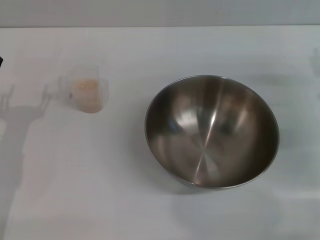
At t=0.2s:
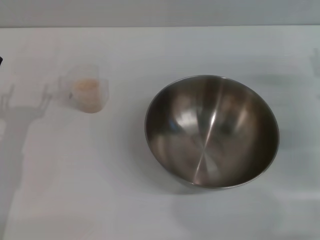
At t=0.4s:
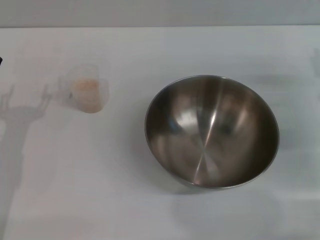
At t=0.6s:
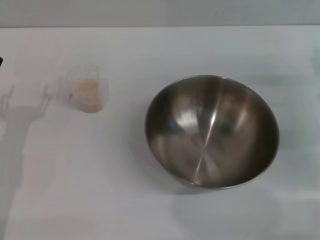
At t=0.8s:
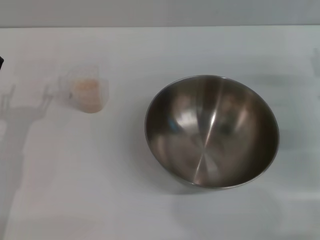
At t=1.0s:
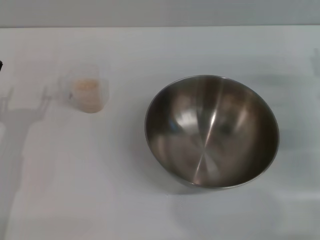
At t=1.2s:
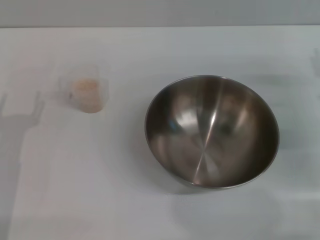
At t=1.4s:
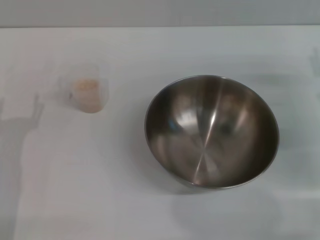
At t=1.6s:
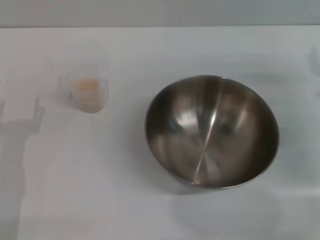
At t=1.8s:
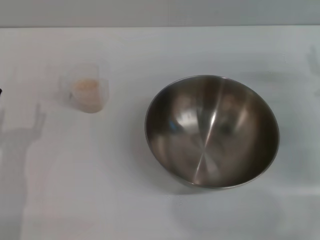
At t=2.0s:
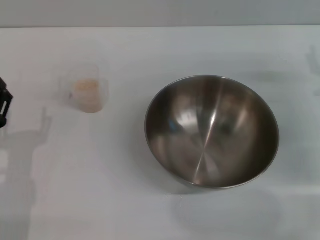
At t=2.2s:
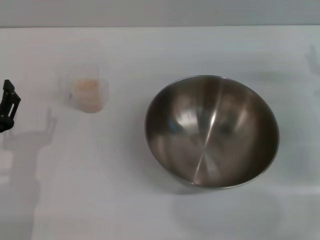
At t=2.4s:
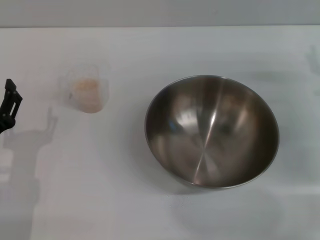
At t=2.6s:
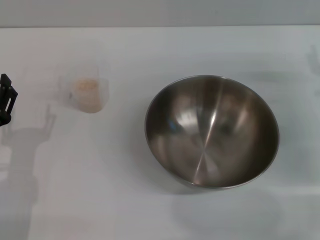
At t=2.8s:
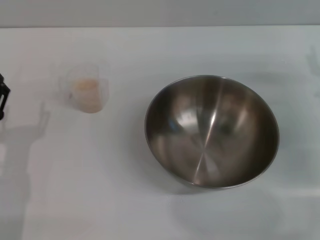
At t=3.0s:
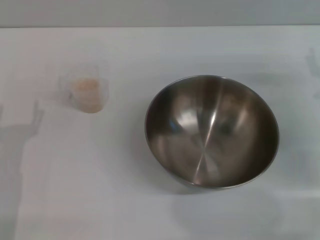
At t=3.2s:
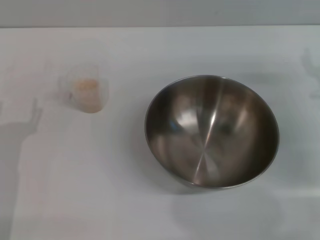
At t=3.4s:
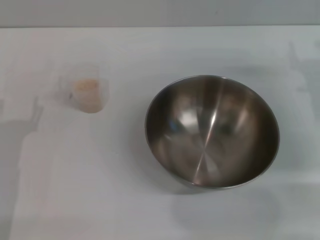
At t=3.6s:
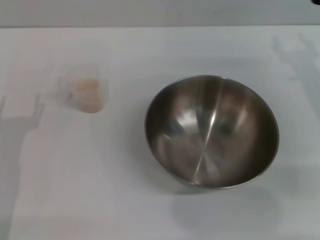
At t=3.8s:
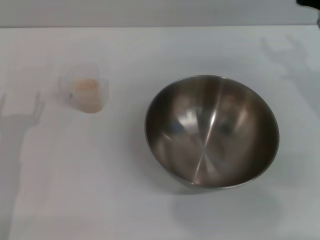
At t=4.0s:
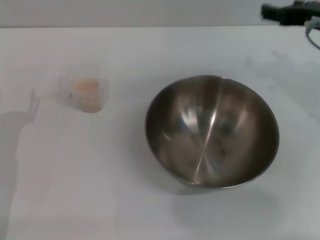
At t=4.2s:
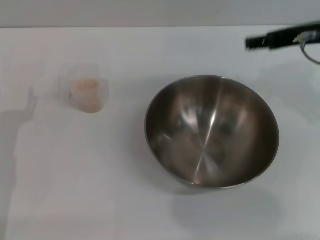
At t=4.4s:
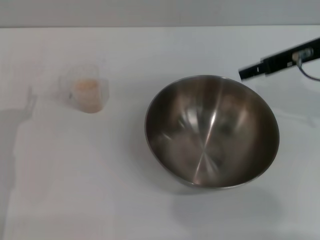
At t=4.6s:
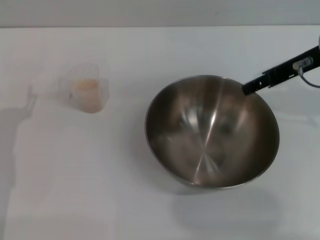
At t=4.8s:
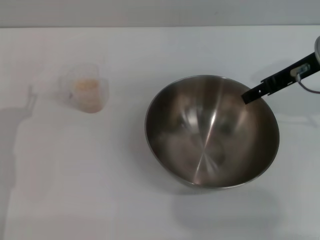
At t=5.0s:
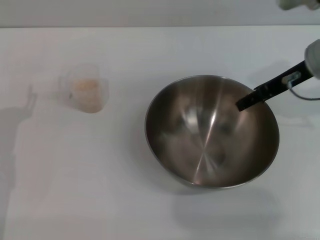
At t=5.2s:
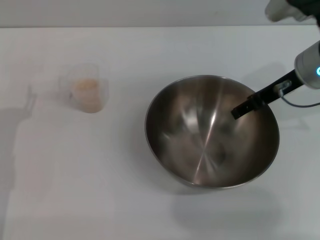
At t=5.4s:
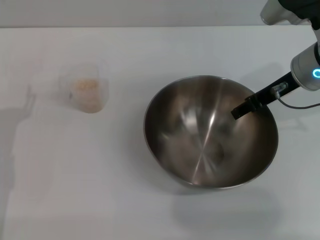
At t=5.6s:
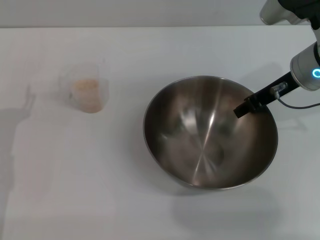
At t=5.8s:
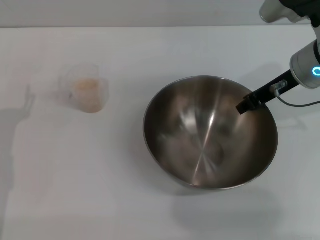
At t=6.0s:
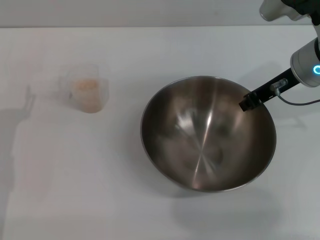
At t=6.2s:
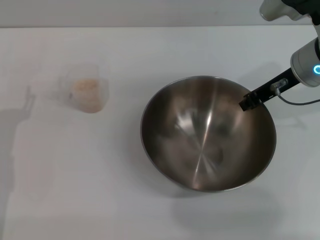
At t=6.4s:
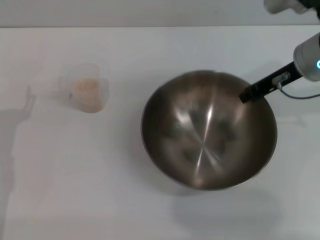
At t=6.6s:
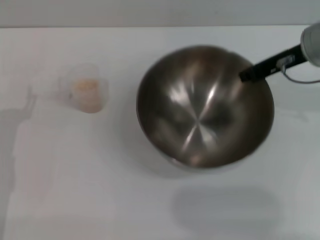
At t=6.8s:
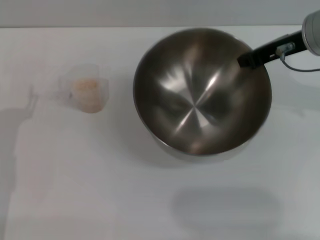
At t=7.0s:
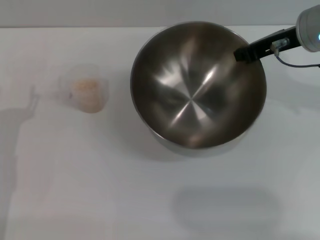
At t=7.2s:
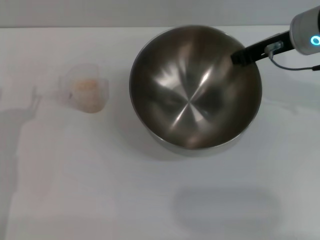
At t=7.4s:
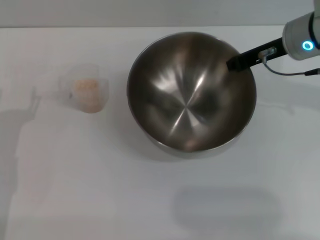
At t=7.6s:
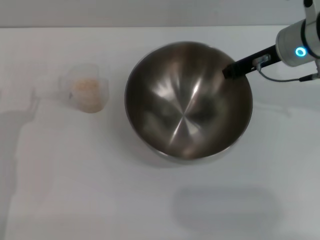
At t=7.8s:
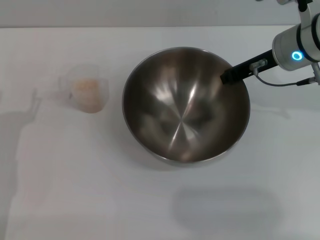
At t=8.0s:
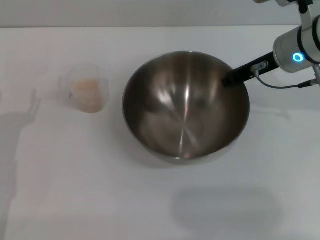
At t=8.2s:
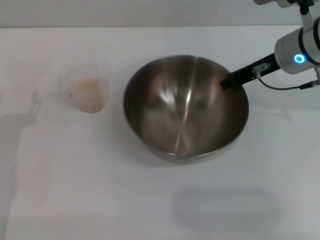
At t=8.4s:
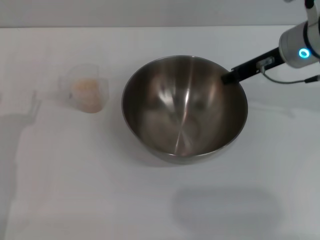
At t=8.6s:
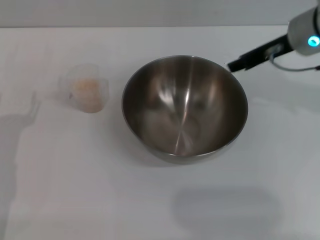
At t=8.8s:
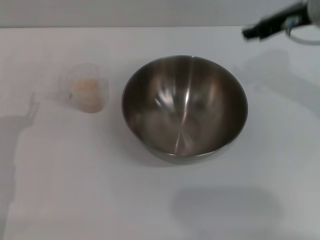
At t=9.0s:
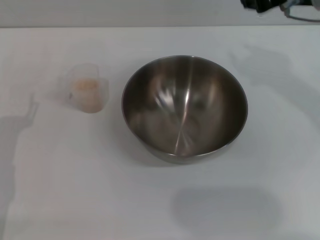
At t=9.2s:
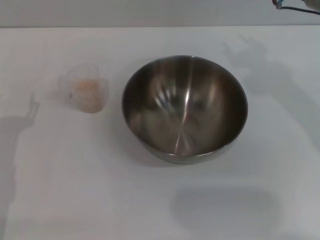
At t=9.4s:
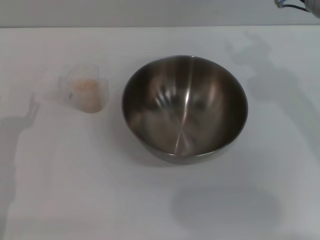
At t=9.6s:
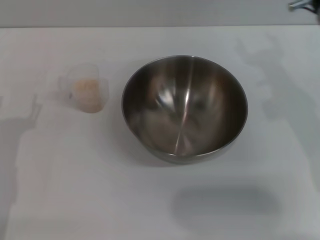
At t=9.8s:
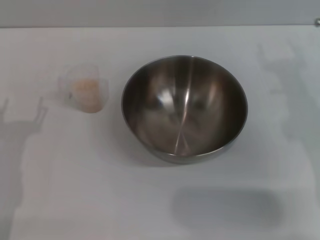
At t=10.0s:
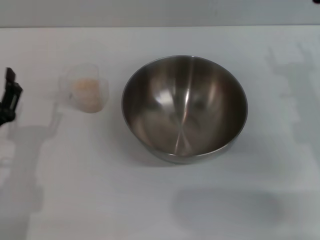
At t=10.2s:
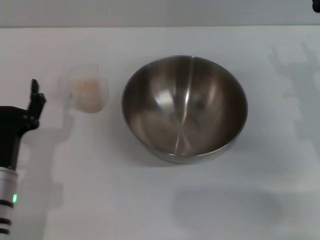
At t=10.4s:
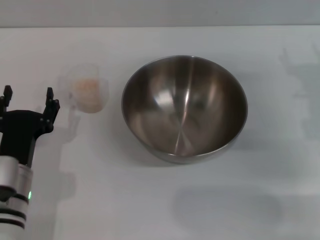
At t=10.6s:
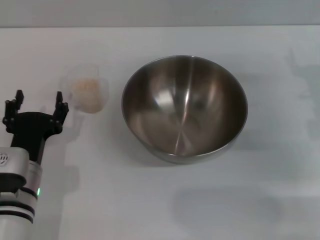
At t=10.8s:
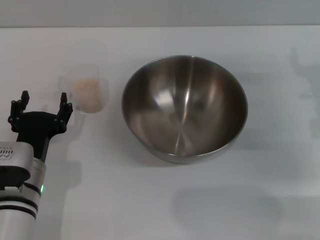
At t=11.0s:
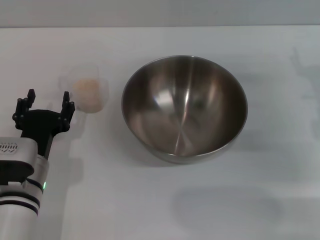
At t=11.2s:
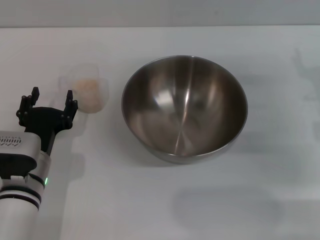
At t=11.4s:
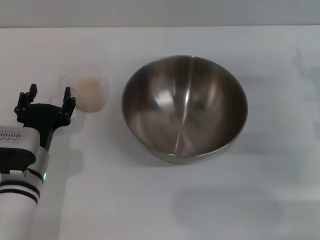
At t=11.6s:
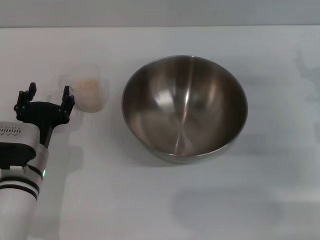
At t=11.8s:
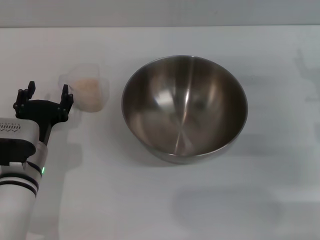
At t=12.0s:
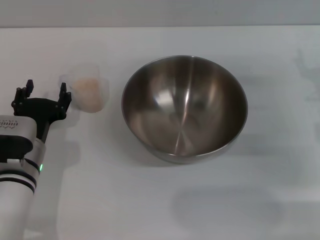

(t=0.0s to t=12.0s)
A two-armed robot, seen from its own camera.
Task of the whole recording: Place the bowl in the middle of the table with one hand and pour the rice from the grain cup into it with the other hand.
Step, t=0.0s - t=6.8s: Pick up the bowl with the right gripper.
Step, t=7.0s - t=8.8s: Place the bowl in the center of view with the right gripper.
t=3.0s - t=4.4s: The right gripper shifts roughly 15 cm upward and to the left.
t=4.4s - t=6.0s: The right gripper moves roughly 5 cm, and closes.
t=7.6s - t=9.0s: The right gripper travels upward by approximately 10 cm, and opens its fingers.
t=9.0s - t=10.4s: The left gripper moves to the right, about 10 cm. The right gripper goes about 15 cm downward and to the right, and opens.
t=10.4s - t=12.0s: The left gripper heads forward, covering approximately 5 cm.

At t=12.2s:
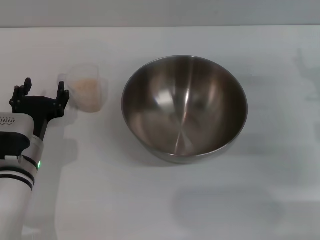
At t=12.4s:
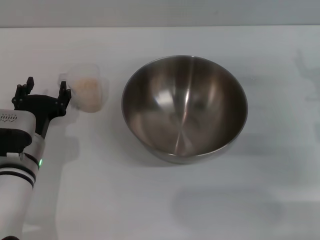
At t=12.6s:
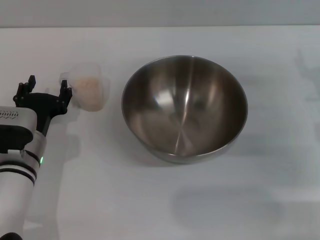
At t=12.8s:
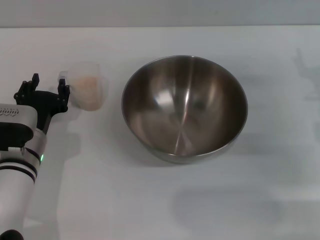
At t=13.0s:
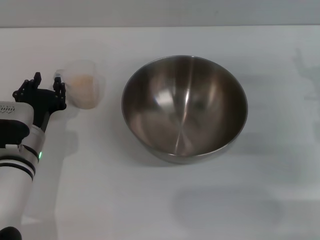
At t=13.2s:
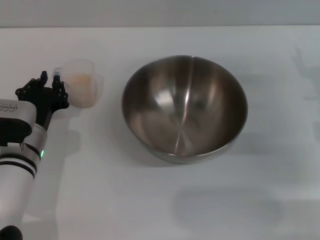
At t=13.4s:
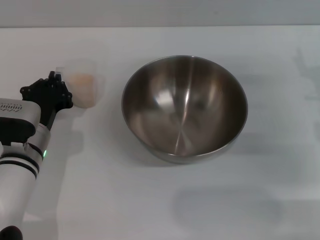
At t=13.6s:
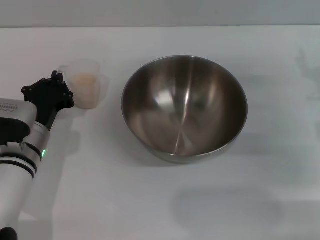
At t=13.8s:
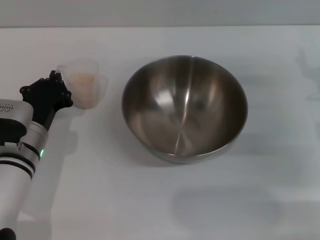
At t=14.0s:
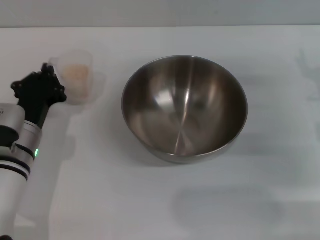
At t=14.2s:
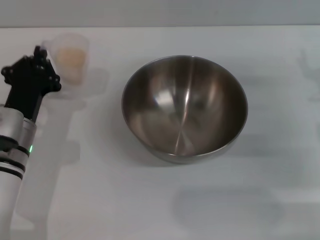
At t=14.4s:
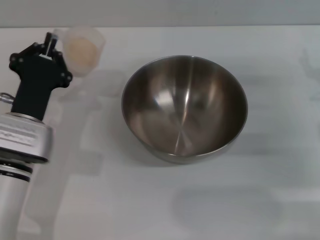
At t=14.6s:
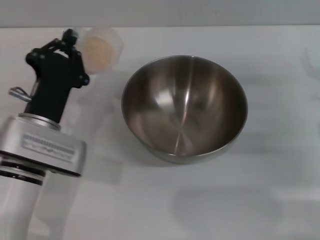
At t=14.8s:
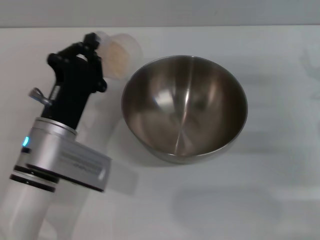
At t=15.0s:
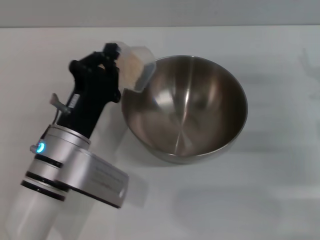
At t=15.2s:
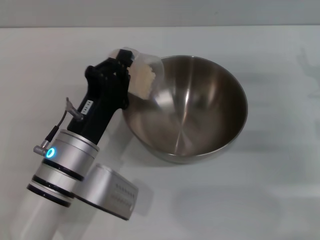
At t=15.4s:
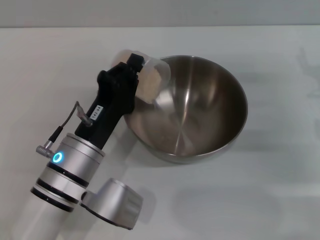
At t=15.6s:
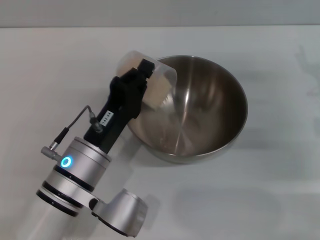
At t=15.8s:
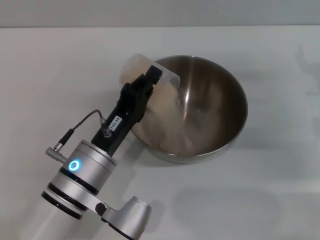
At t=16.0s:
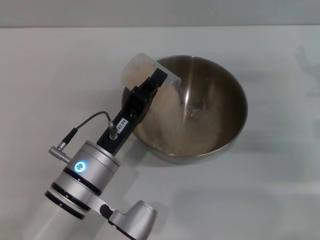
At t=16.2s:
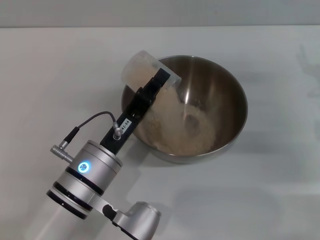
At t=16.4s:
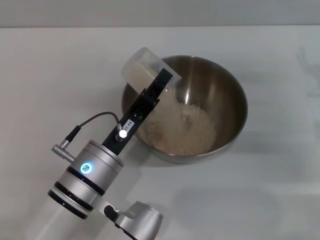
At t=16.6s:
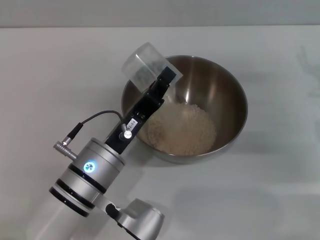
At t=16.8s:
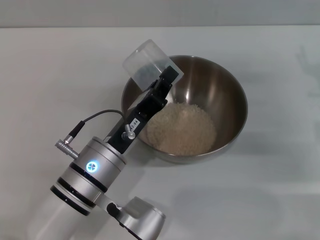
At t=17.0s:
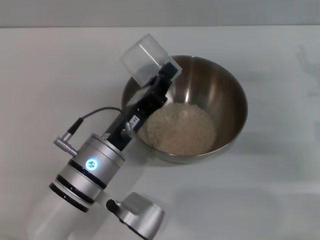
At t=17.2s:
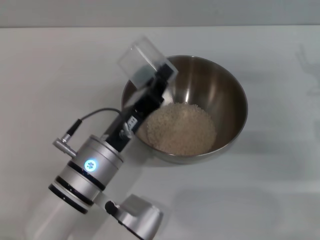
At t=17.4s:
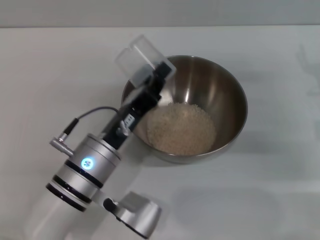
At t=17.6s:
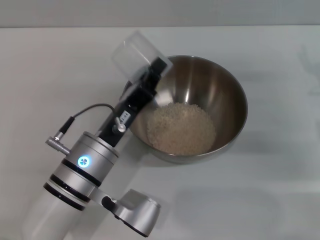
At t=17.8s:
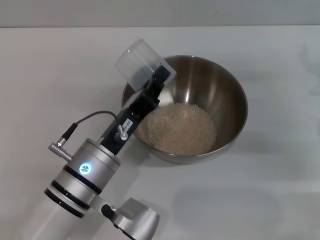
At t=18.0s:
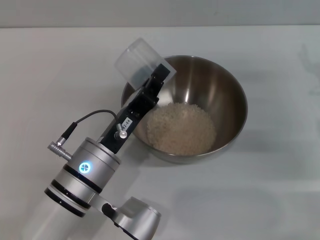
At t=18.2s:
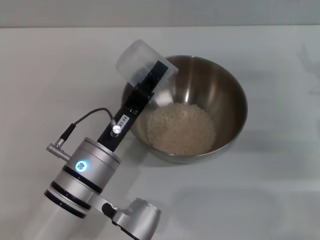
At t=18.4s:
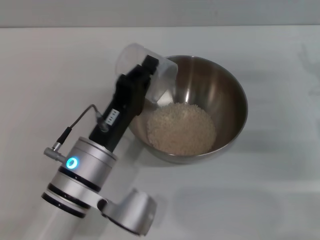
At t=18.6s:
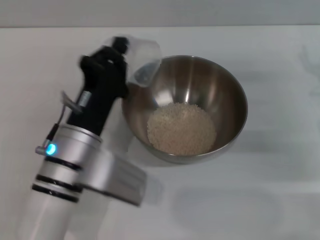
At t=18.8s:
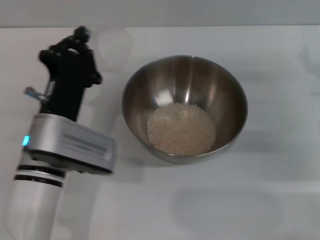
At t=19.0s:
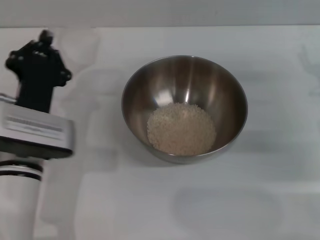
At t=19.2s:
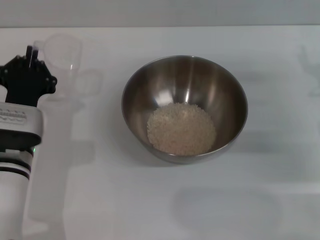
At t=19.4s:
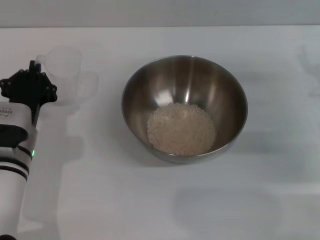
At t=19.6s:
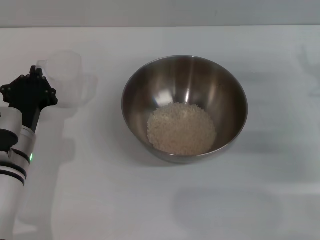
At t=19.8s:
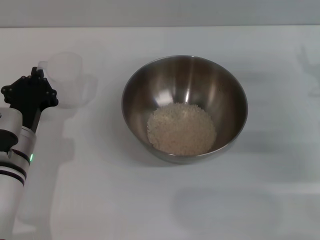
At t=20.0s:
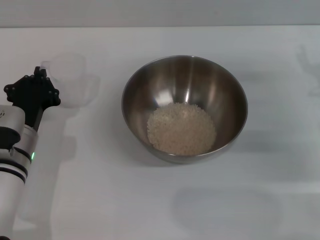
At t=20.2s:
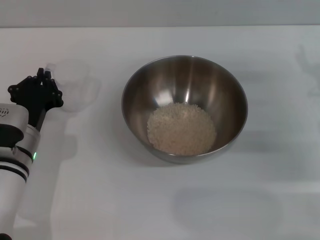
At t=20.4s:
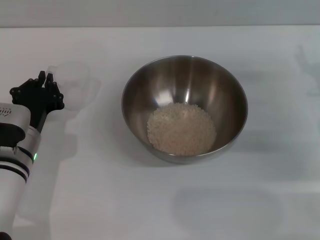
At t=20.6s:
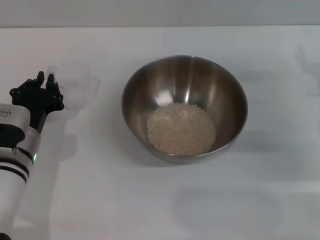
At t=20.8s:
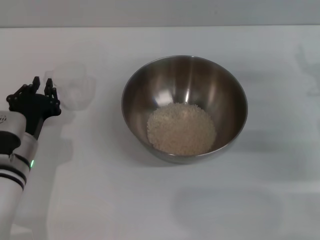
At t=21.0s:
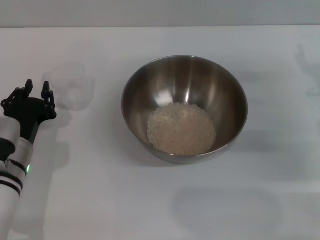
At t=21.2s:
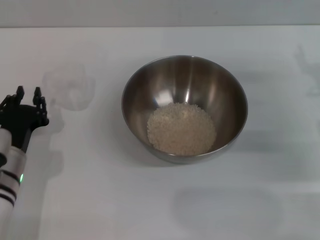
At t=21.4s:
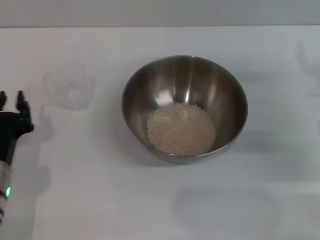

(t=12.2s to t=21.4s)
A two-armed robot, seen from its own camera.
Task of the whole recording: Place the bowl in the middle of the table with one hand and pour the rice from the grain cup into it with the other hand.
Step, t=12.2s - t=14.6s: Pick up the cup with rice in it with the left gripper.
Step, t=14.8s - t=17.4s: Pour the rice from the cup into the bowl with the left gripper.
Step, t=17.8s - t=21.0s: Place the cup on the table with the left gripper.
t=12.2s - t=13.8s: The left gripper closes up.
t=13.8s - t=15.2s: The left gripper moves to the right and backward, approximately 10 cm.
t=18.4s - t=19.8s: The left gripper shifts some 10 cm to the left and forward.
t=19.8s - t=21.4s: The left gripper shifts about 5 cm backward.
